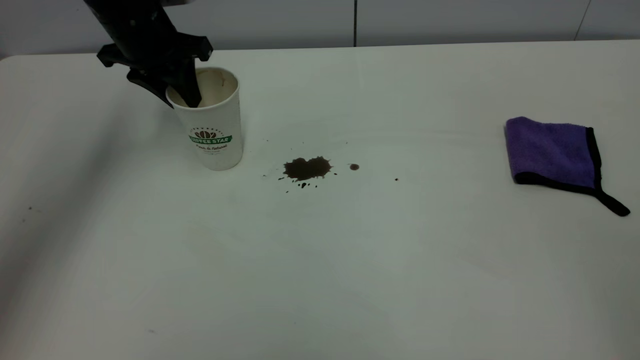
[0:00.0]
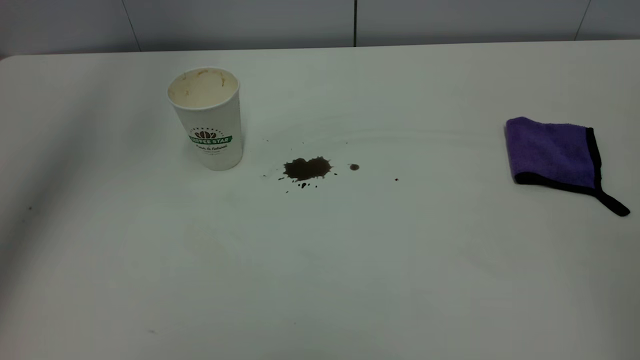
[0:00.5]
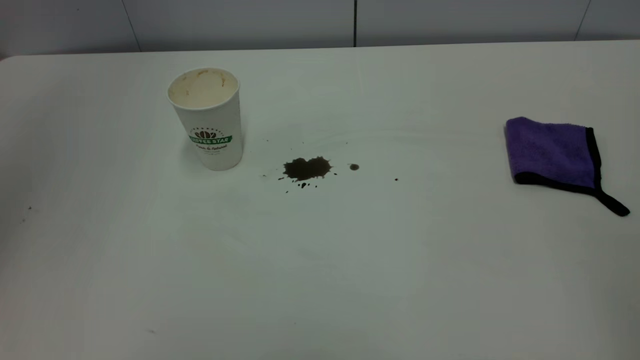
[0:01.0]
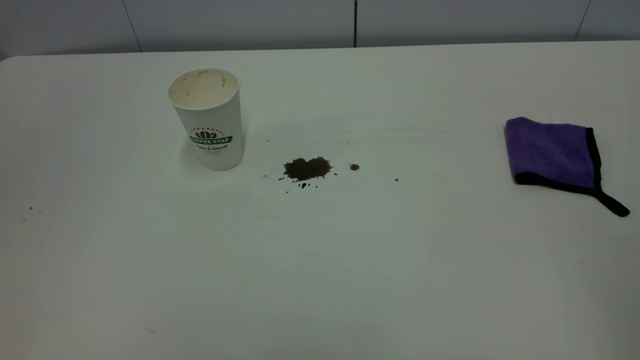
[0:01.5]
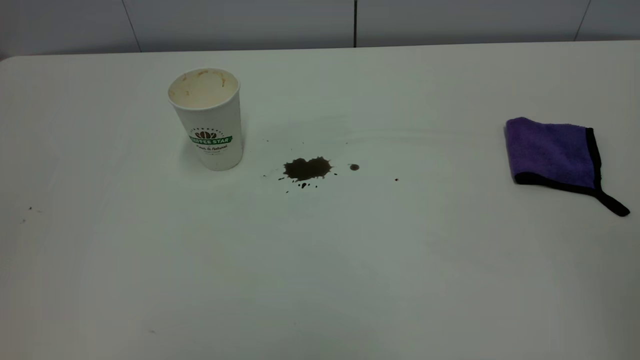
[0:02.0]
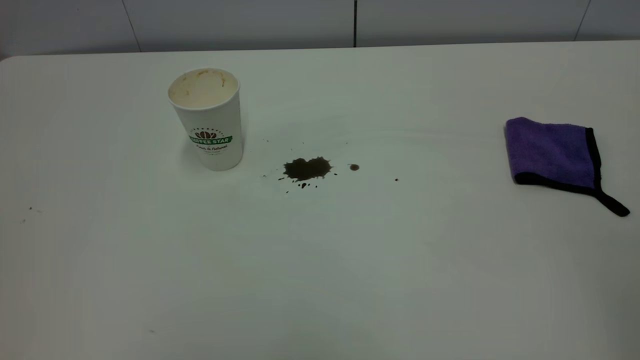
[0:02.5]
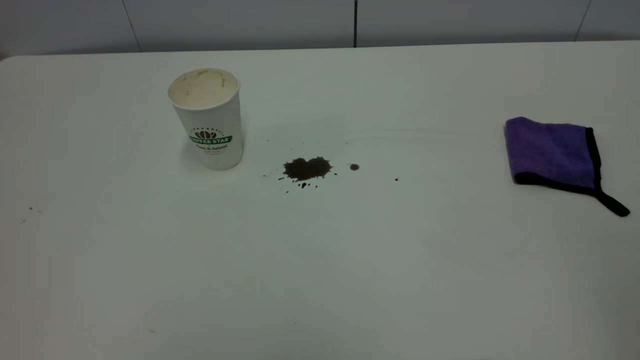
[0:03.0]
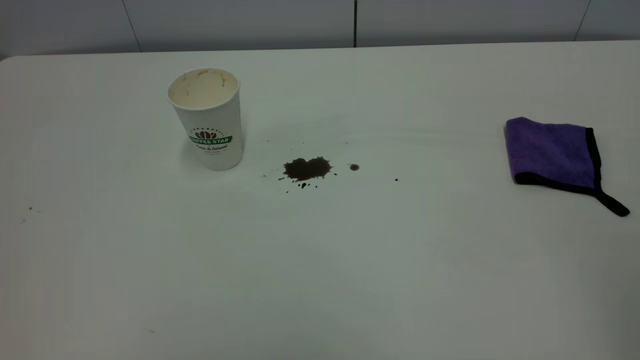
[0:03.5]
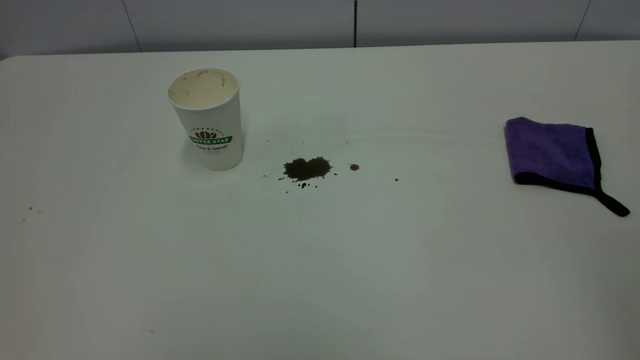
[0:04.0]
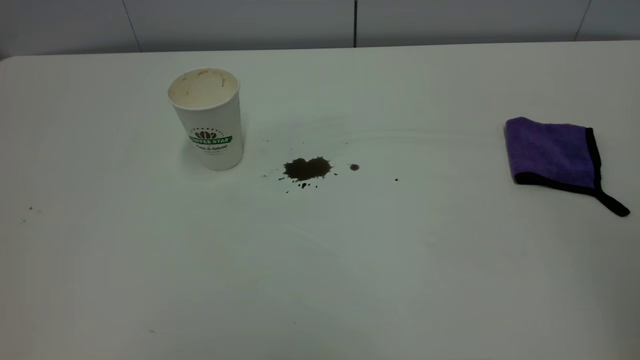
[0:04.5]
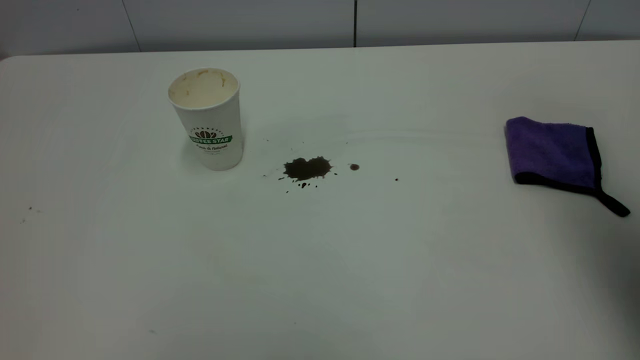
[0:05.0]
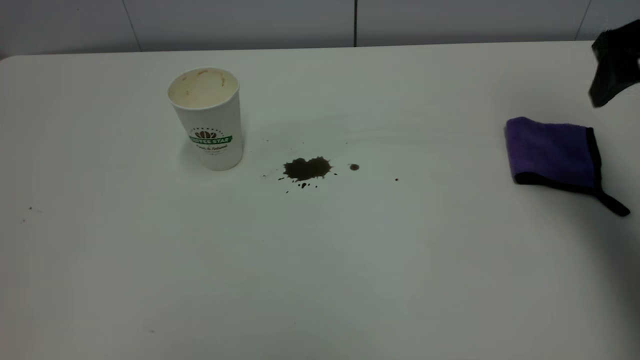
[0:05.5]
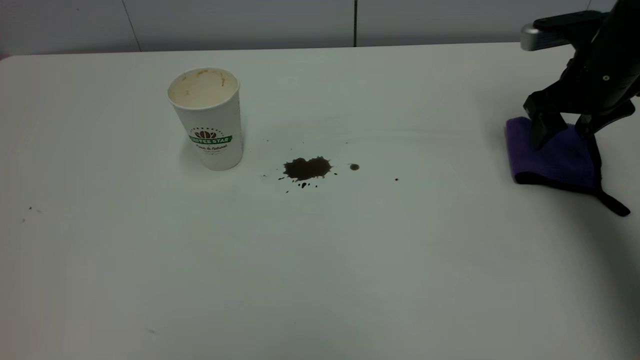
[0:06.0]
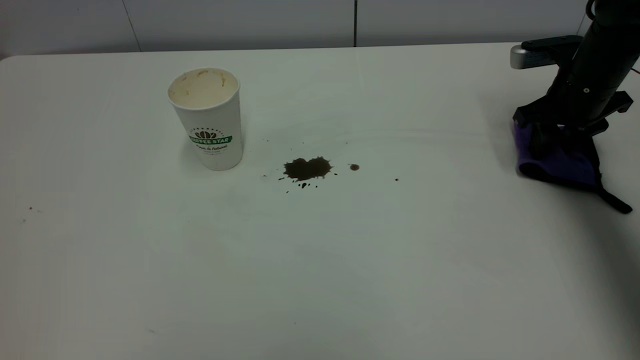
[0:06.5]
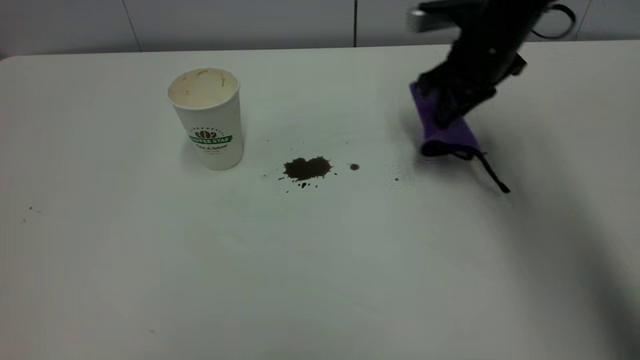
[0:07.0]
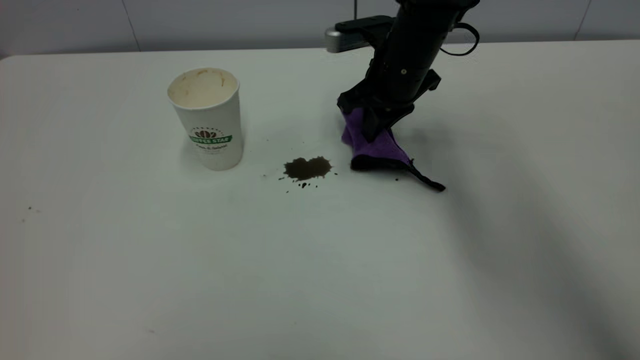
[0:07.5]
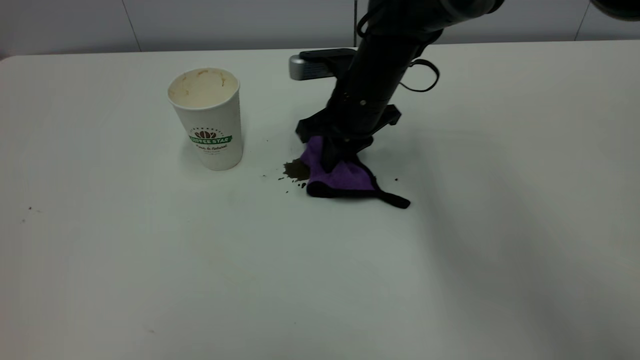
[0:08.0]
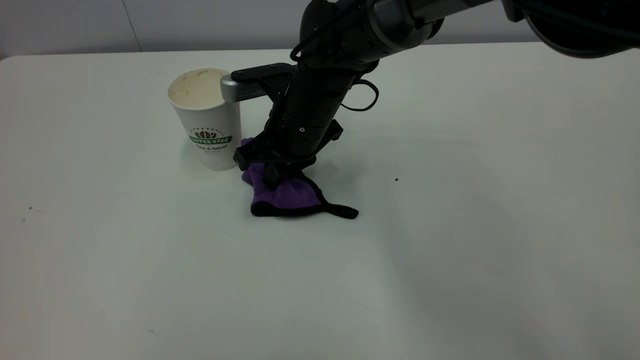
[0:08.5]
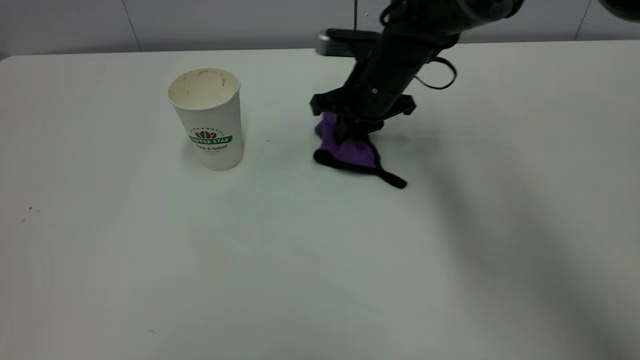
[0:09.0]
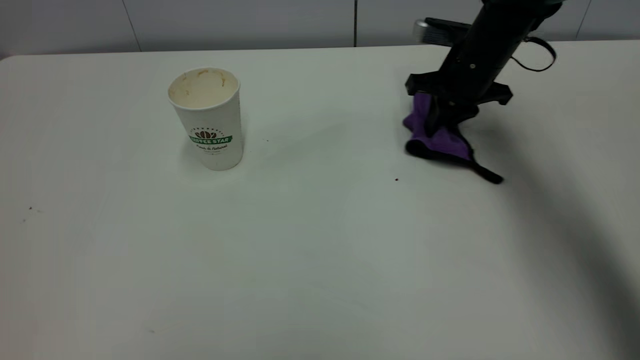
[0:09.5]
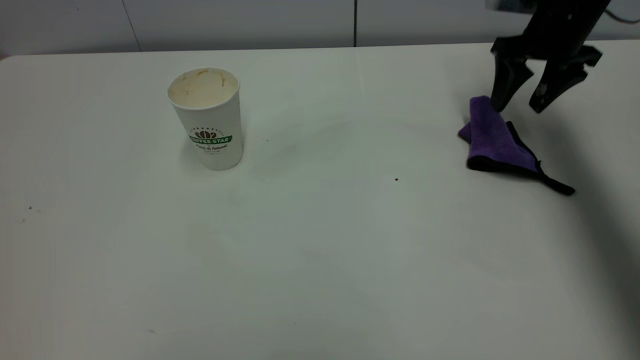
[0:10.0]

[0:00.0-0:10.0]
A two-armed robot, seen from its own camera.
Task of the whole recording: the left gripper pick up the fallen cup and place it upright, the right gripper grasp the purple rag and wipe the coffee stain on the table, the right gripper put the purple rag back in its original position.
Step, 0:00.5 to 0:10.0: Wipe the stains off the table with a rag.
0:00.0 to 0:02.0: The left gripper moves backward and upward, approximately 50 cm, and opens, then closes once more.
0:04.0 to 0:06.0: The right gripper heads forward and downward, covering approximately 50 cm, and opens.
0:06.0 to 0:08.0: The right gripper moves to the left, about 25 cm, and closes.
0:08.0 to 0:10.0: The right gripper shifts approximately 25 cm to the right, and opens.

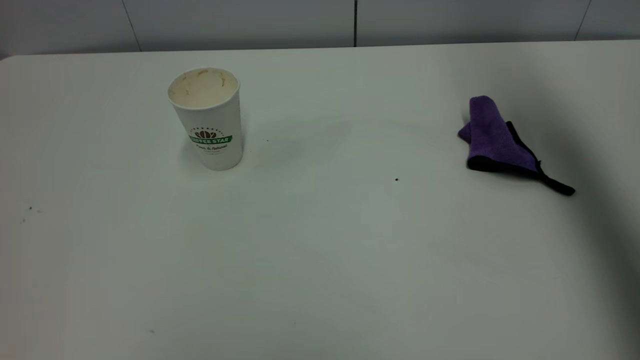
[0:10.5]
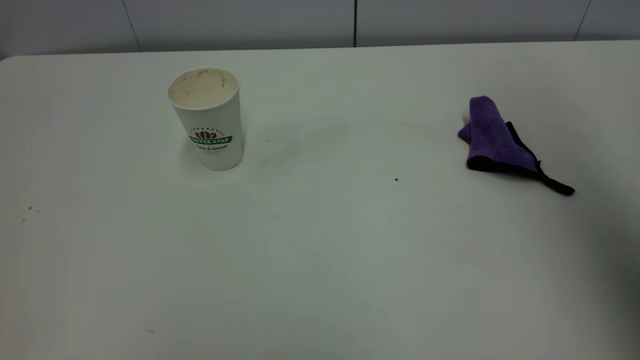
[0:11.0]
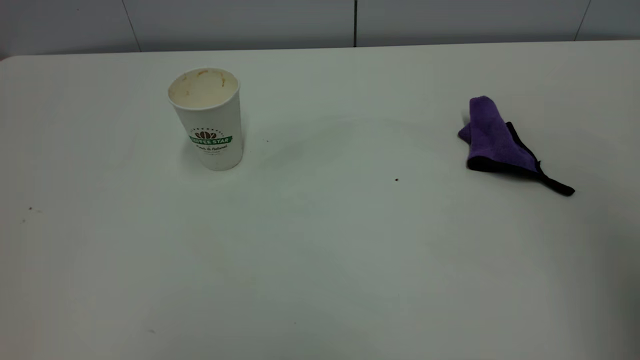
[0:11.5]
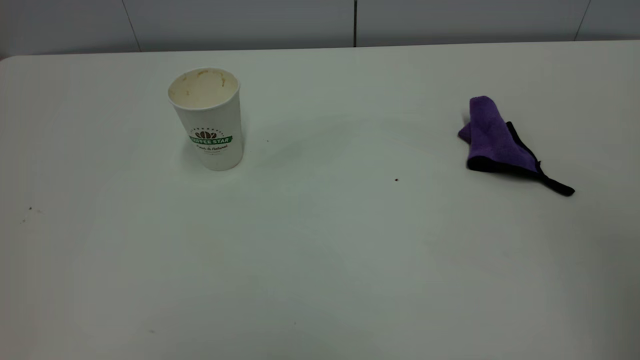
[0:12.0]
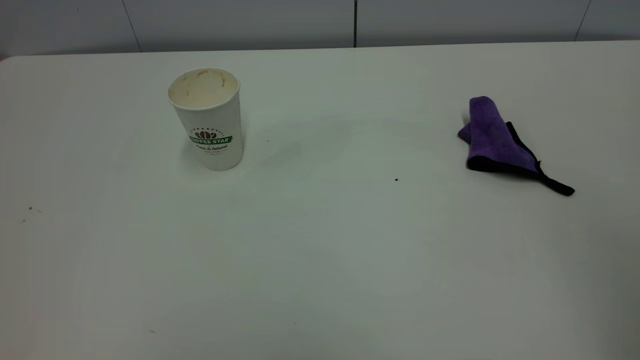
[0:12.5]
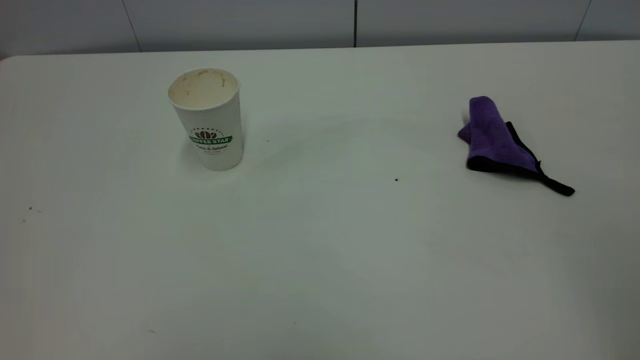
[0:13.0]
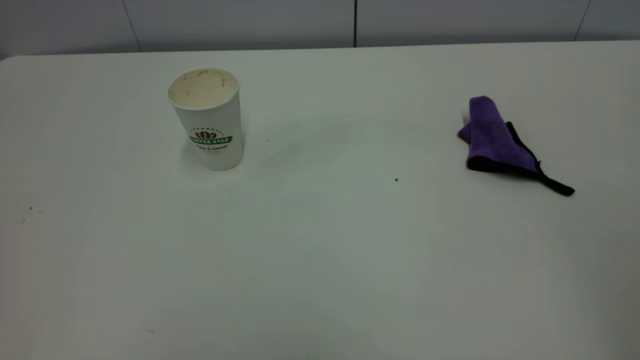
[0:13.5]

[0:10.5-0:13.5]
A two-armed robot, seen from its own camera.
Task of the whole recording: the left gripper pick up the fallen cup and place it upright, the right gripper grasp the purple rag and wipe the coffee stain on the table, the right gripper put the purple rag back in its original position.
0:10.5 to 0:12.0: The right gripper heads backward, covering roughly 40 cm.

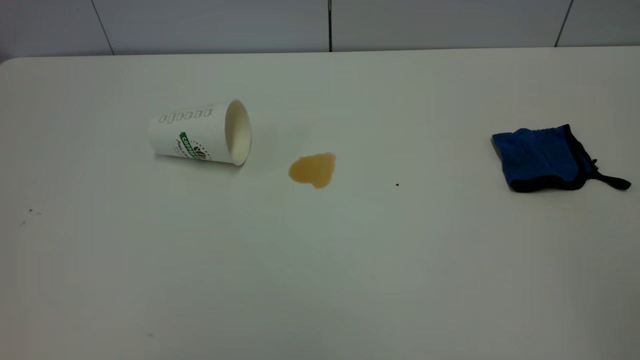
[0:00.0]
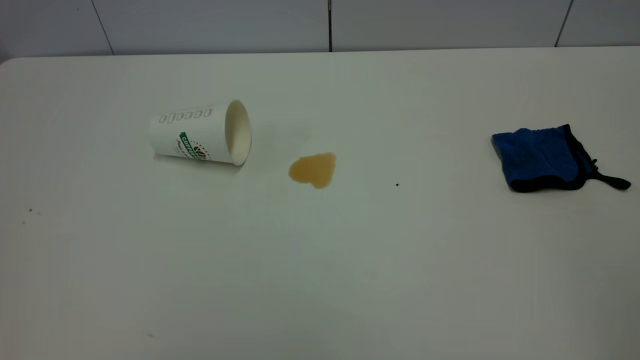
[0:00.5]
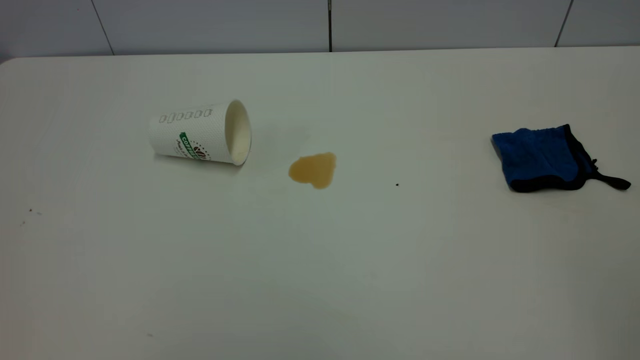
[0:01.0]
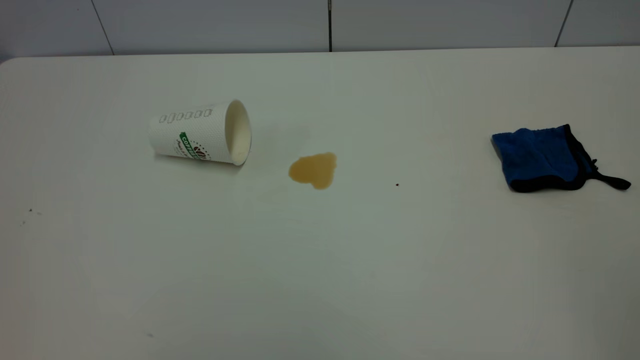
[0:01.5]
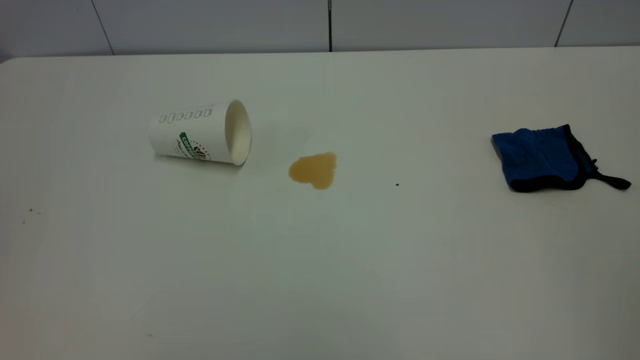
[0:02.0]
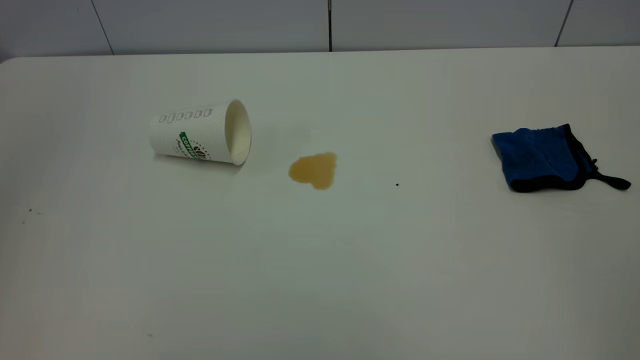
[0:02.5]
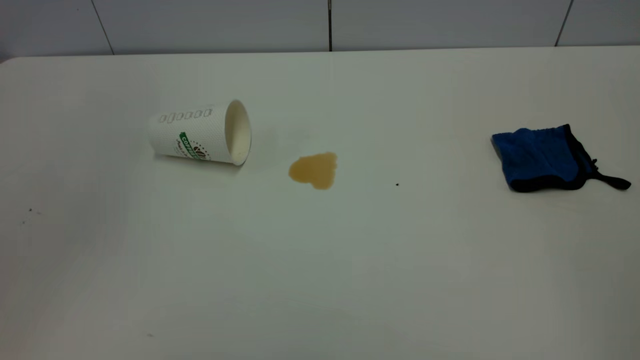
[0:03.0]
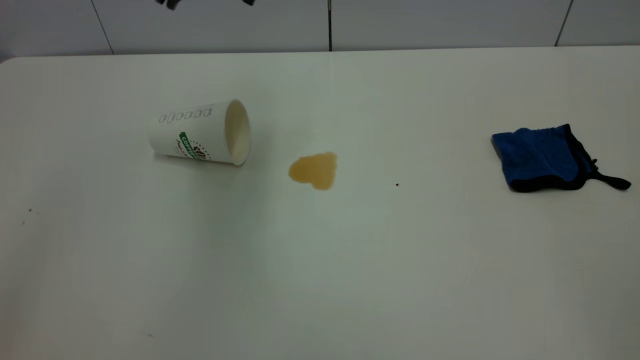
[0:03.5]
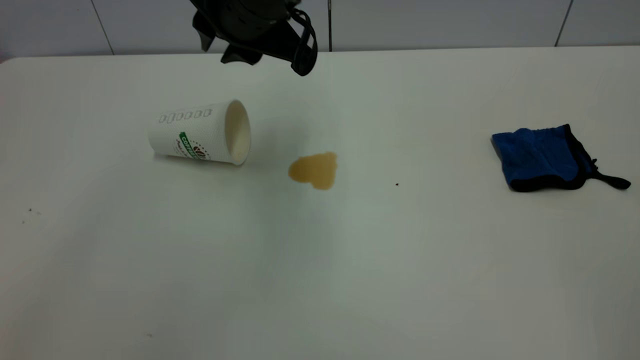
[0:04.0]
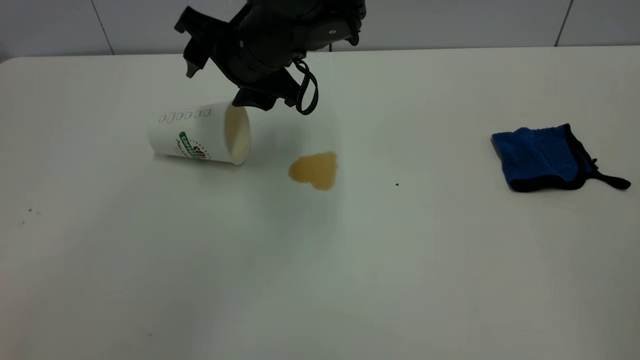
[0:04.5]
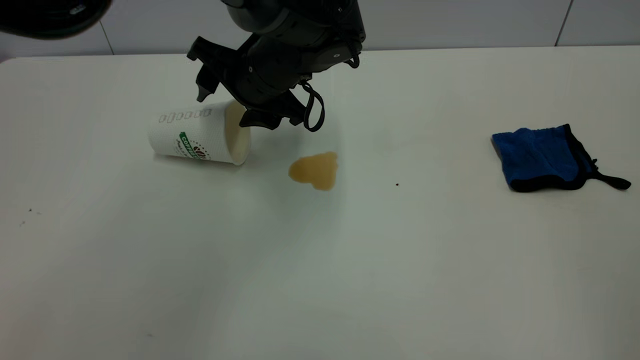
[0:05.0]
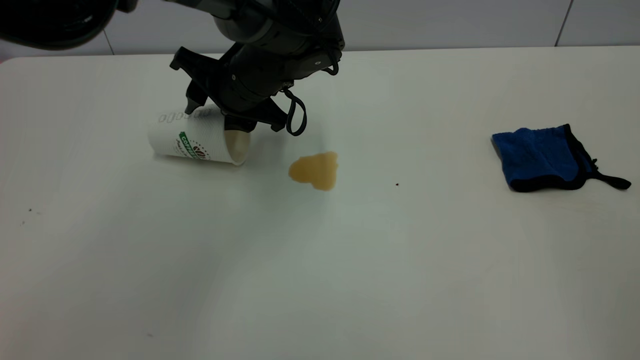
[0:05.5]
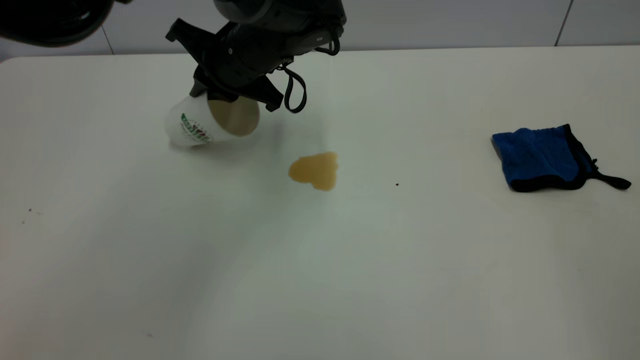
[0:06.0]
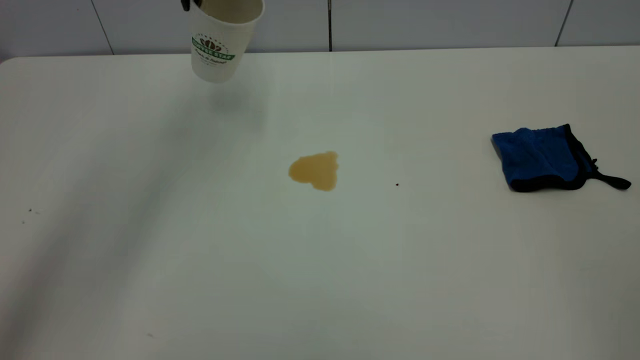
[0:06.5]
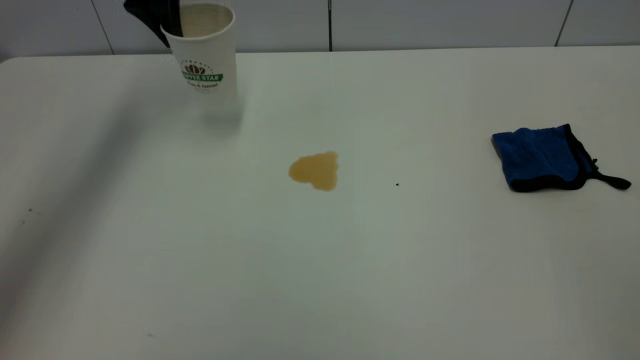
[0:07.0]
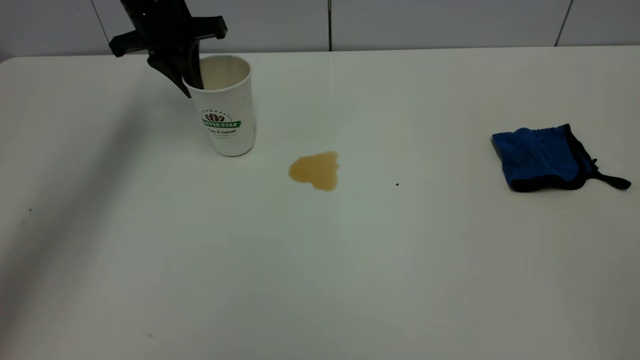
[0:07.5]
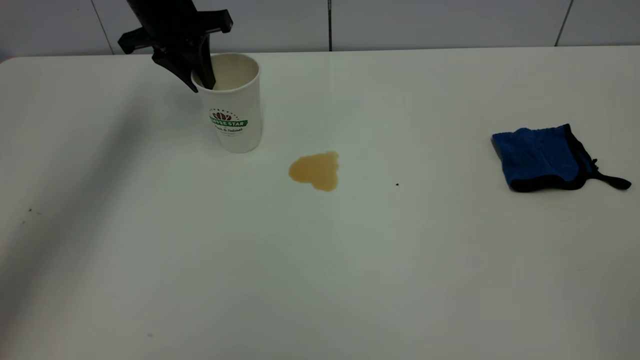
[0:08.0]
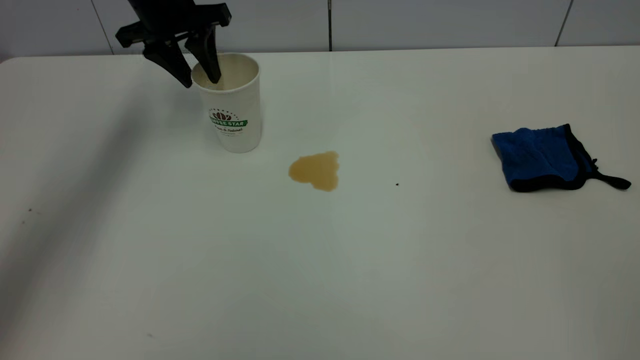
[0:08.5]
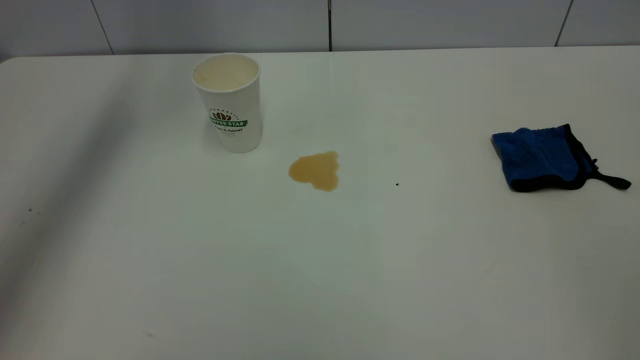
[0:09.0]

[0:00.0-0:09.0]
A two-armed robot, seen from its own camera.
Task of the whole recording: the left gripper pick up the fallen cup and place it upright, the right gripper grasp the blue rag and wipe the tea stain on the table, the right gripper put the blue rag back in its original position.
Step, 0:00.0 to 0:08.5: Stand the paper cup upright.
0:02.0 to 0:04.5: The left gripper heads forward, downward and to the right, covering roughly 50 cm, and opens its fingers.
0:04.5 to 0:07.0: The left gripper is displaced to the left, forward and upward by roughly 20 cm, and closes up.
0:07.0 to 0:09.0: The left gripper is displaced upward by approximately 10 cm, and opens.
